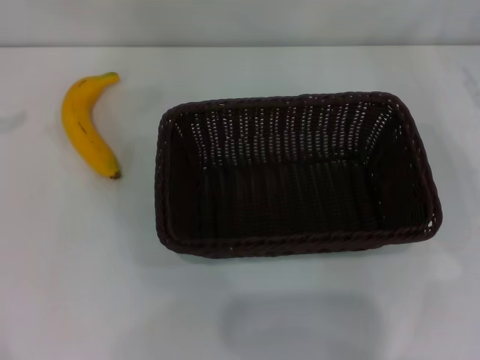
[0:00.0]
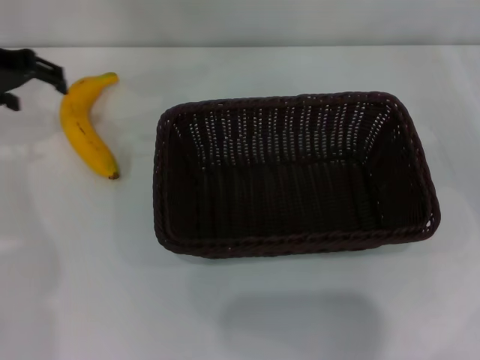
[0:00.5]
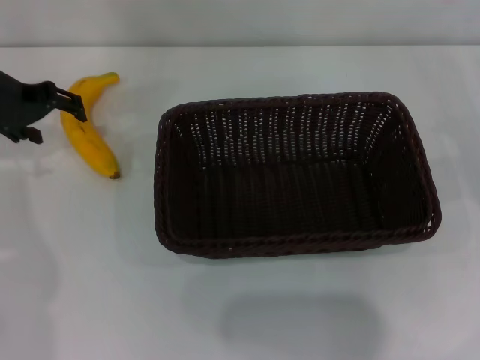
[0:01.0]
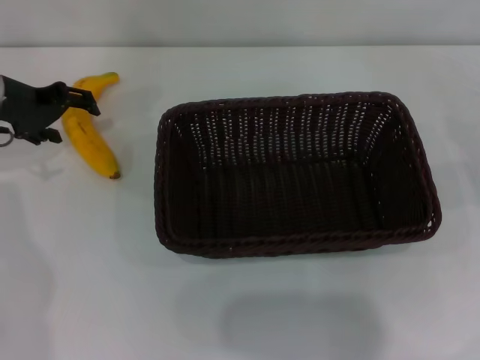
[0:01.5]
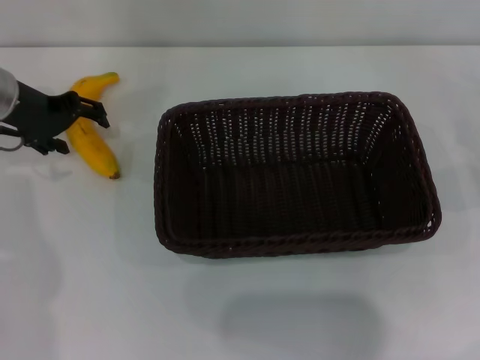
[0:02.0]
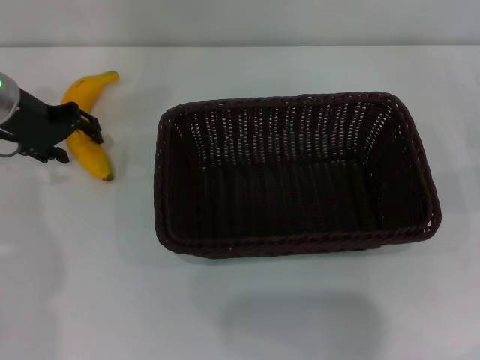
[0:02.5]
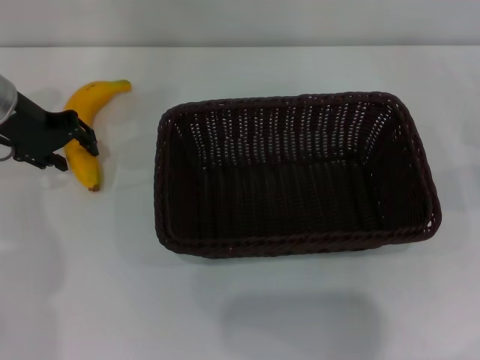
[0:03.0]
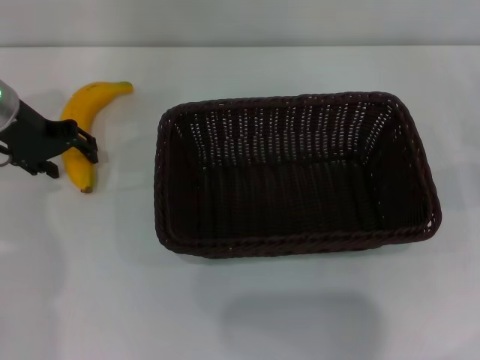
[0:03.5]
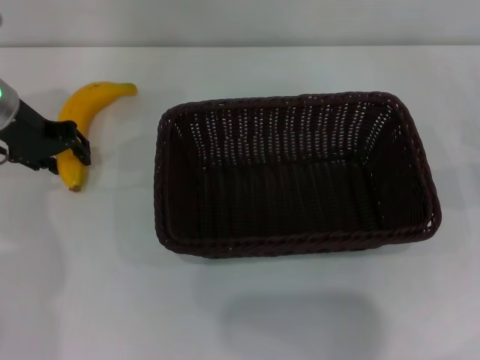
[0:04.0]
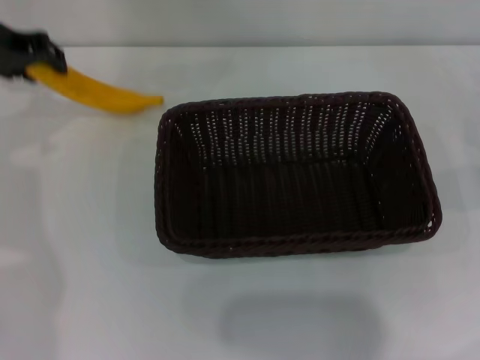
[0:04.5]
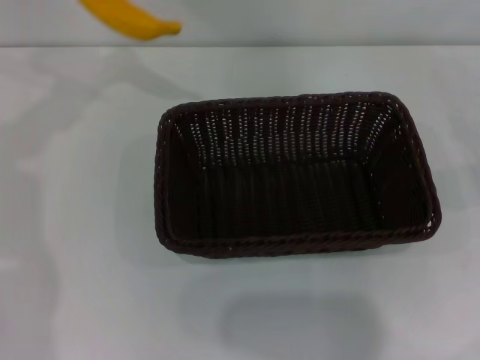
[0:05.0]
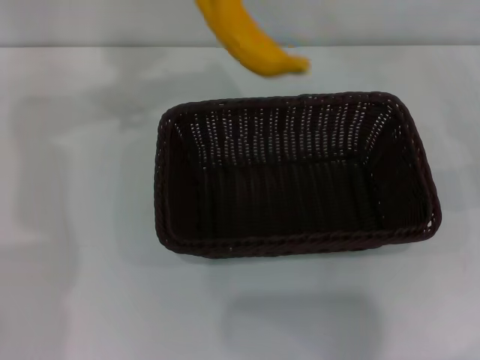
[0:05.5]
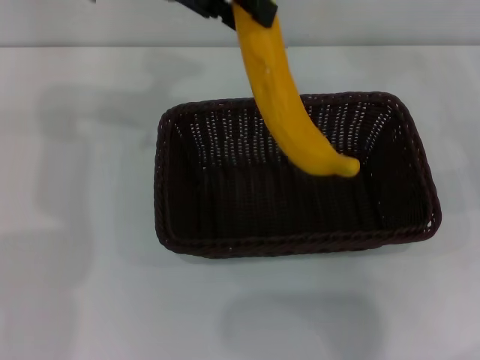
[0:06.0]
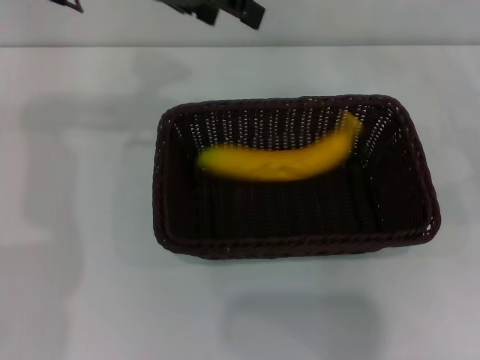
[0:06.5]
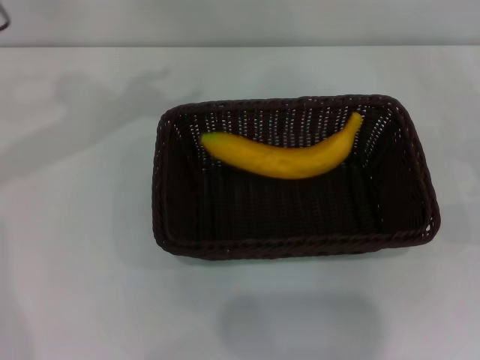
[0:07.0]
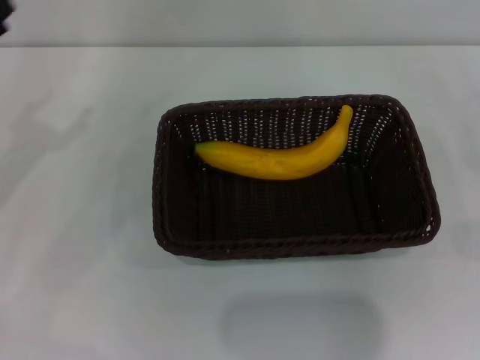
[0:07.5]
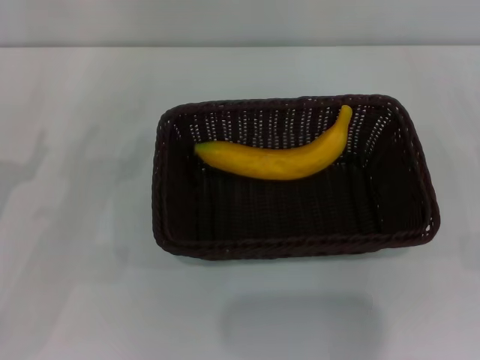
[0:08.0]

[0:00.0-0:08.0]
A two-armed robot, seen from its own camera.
Step, 0:00.0 to 0:04.5: Pick up the banana with the left gripper.
Step, 0:05.0 to 0:06.5: Place the banana into the dark basket with the left gripper.
0:00.0 to 0:02.0: The left gripper is displaced downward, to the right and forward by roughly 20 cm.
0:02.0 to 0:04.0: The left gripper closes its fingers.
0:04.0 to 0:06.0: The left gripper heads upward and to the right, covering roughly 20 cm, and closes its fingers.
0:06.0 to 0:08.0: The left gripper goes approximately 35 cm downward, to the left and backward, and opens up. The right gripper moves backward, approximately 5 cm.
